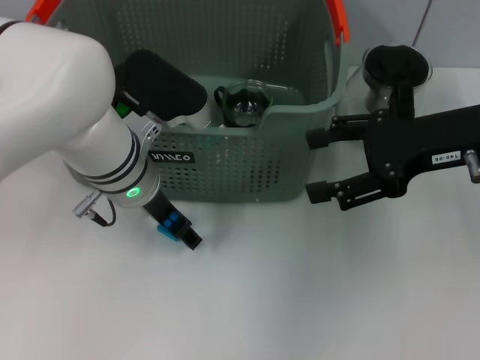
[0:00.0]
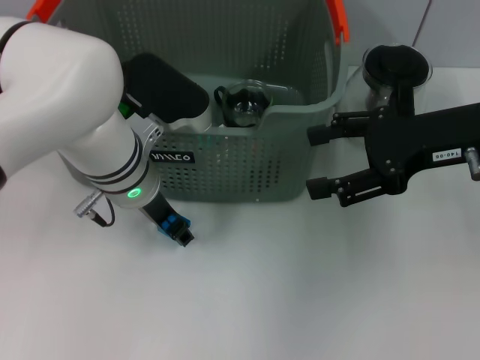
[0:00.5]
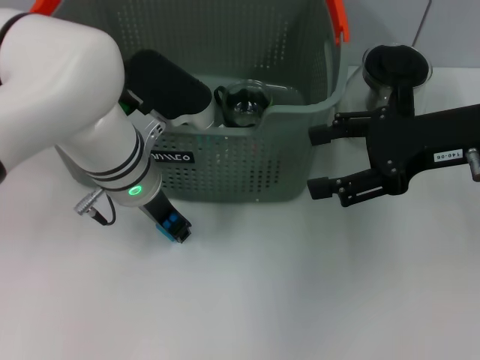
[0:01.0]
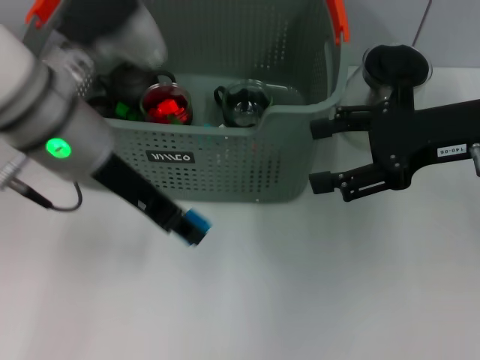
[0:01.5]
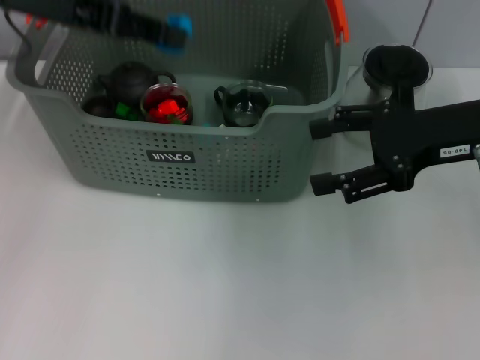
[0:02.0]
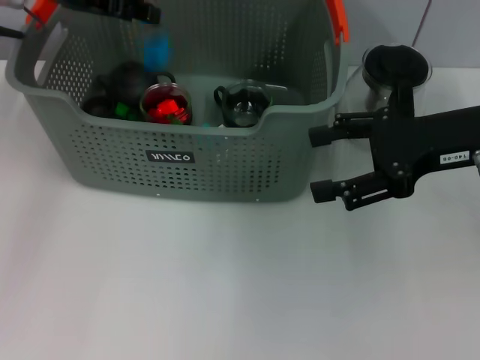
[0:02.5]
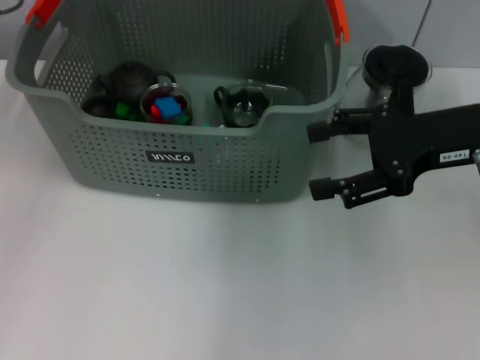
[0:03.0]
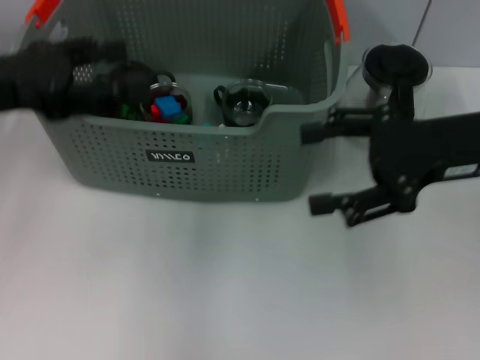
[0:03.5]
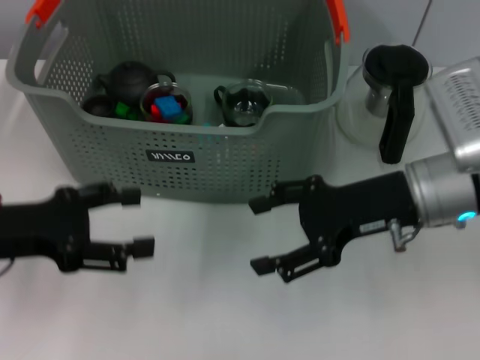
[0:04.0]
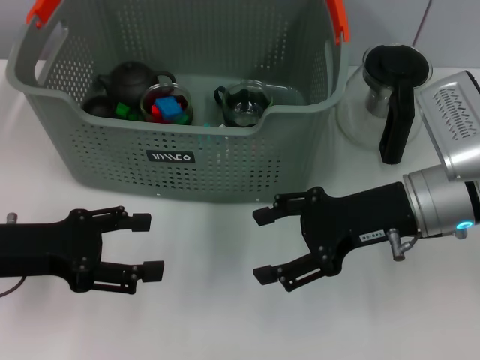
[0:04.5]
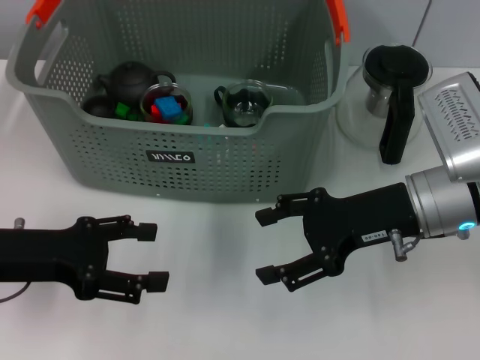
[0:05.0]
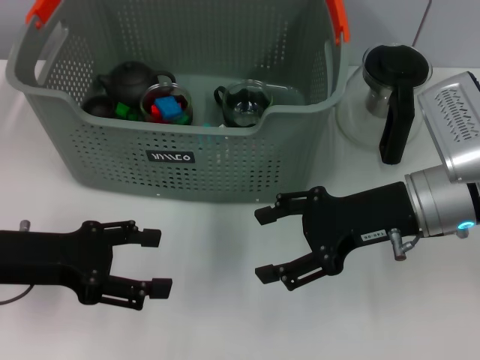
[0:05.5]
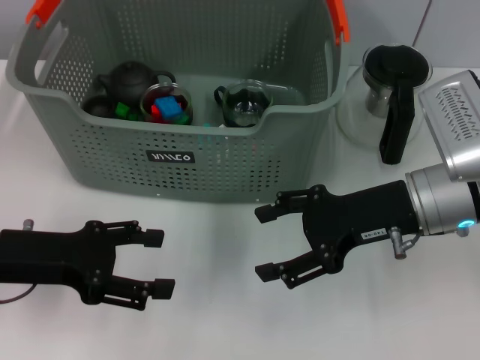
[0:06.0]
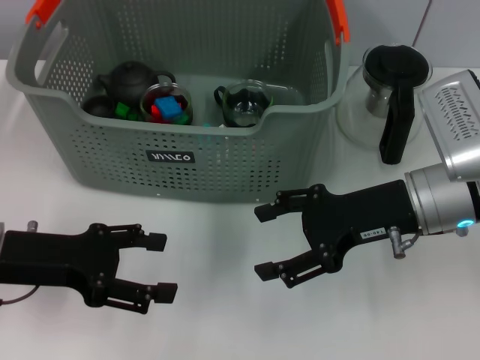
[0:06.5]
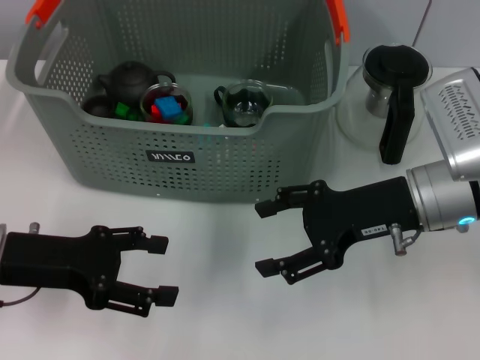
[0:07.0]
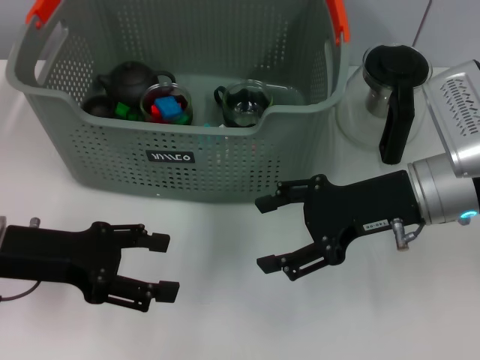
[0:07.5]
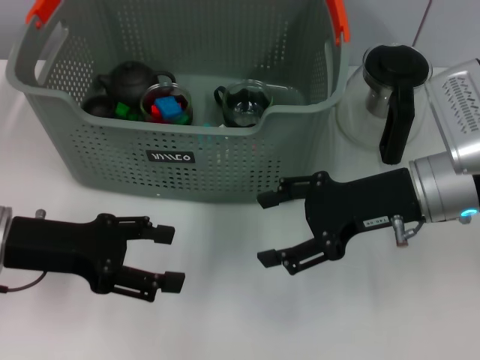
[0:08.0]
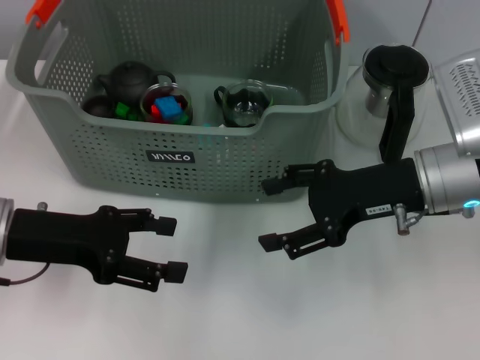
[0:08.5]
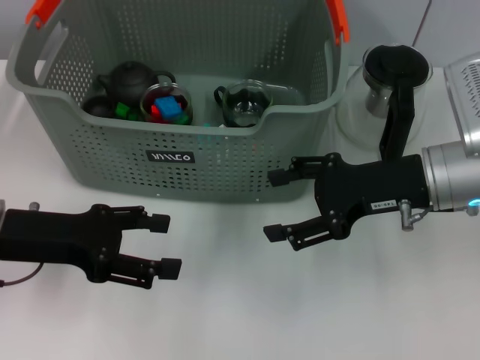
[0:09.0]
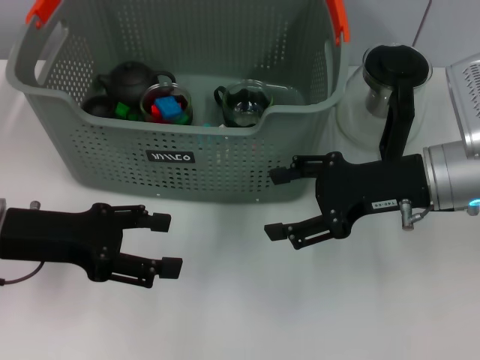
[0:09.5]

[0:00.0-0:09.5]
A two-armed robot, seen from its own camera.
Task of the whole recording: pick up the teacup on the table and place it into the storage bin, pick up the block on the table and place it into the storage bin.
Step, 0:01.5 to 0:02.5: Place the dark blue block in the storage box with left gripper.
0:00.0 to 0:02.0: The left gripper goes some 20 cm upward and to the left, and closes up.
0:02.0 to 0:04.0: The right gripper shifts some 10 cm downward and to the left, while the left gripper moves downward and backward, roughly 20 cm, and opens up.
0:04.0 to 0:05.5: The grippers make only small movements.
0:05.5 to 0:07.5: Both grippers stay about where they are.
0:07.5 to 0:09.5: The grippers make only small movements.

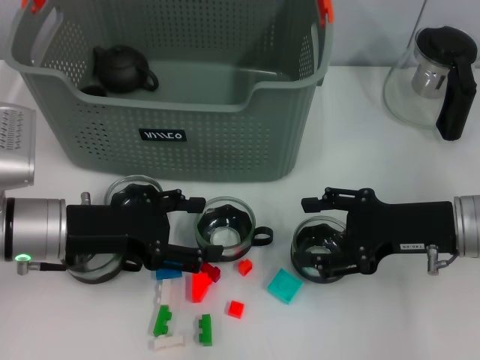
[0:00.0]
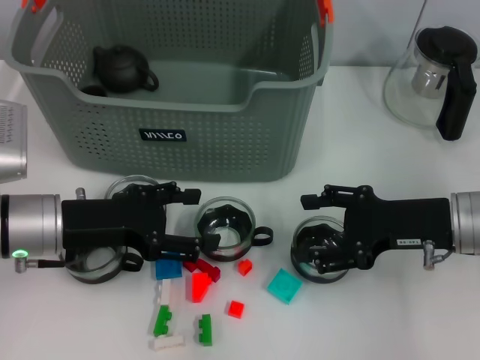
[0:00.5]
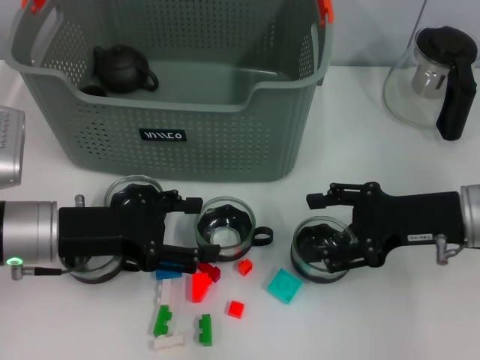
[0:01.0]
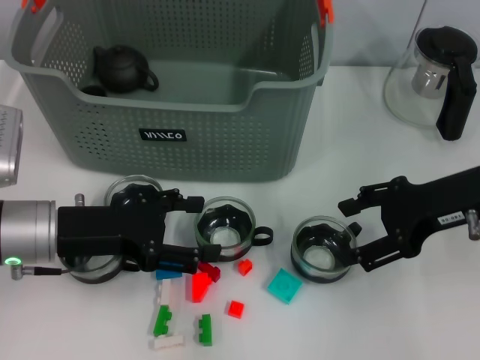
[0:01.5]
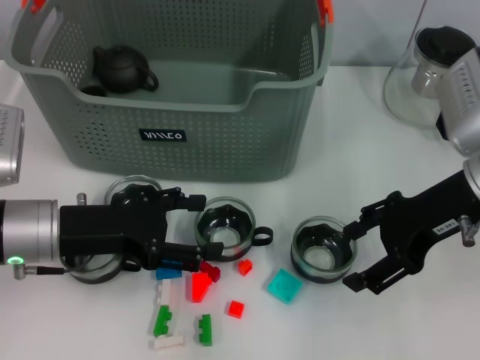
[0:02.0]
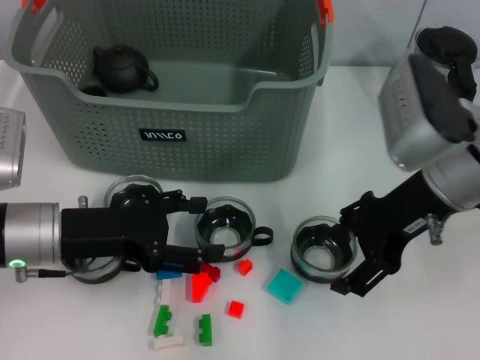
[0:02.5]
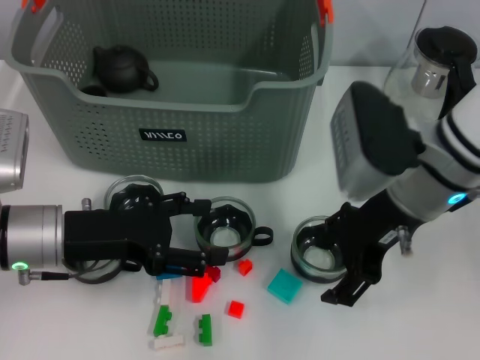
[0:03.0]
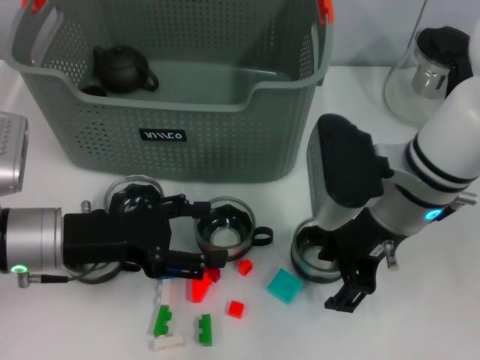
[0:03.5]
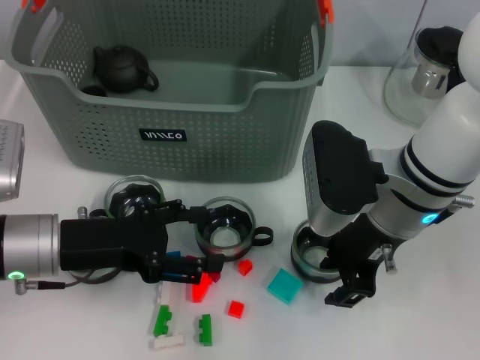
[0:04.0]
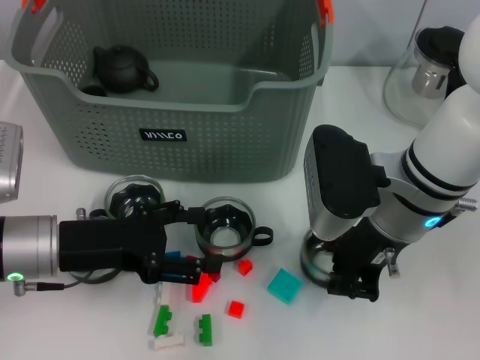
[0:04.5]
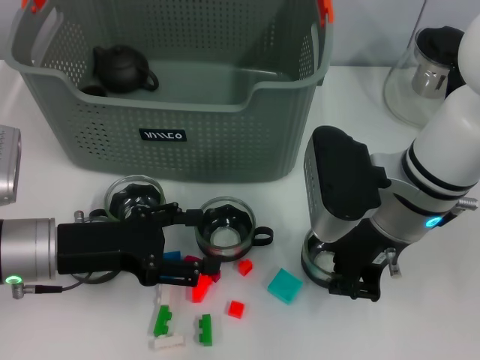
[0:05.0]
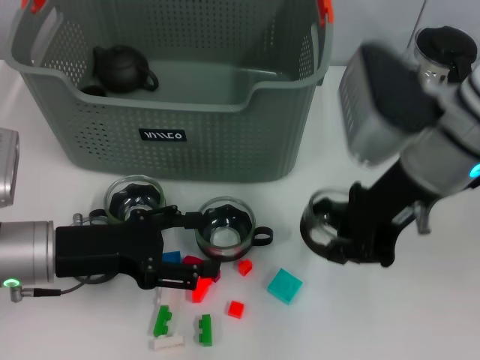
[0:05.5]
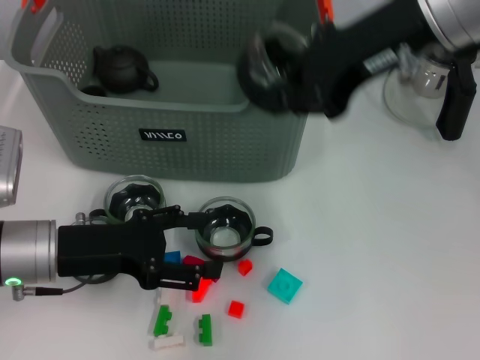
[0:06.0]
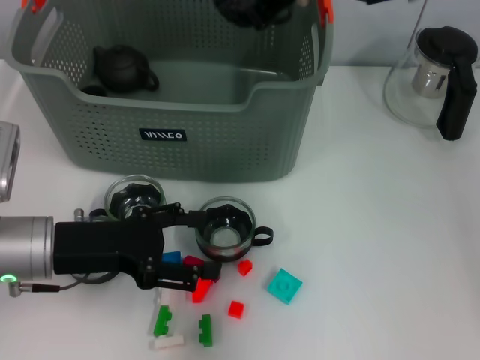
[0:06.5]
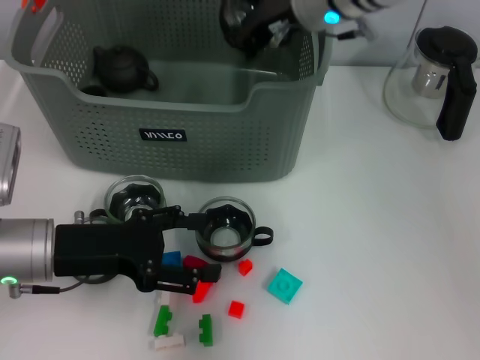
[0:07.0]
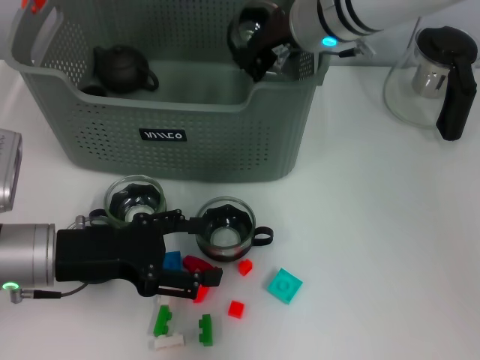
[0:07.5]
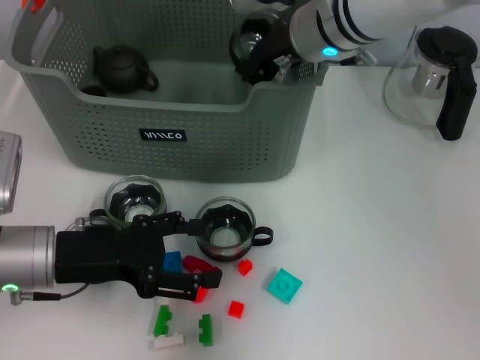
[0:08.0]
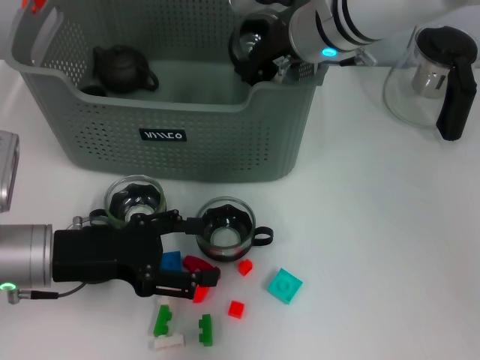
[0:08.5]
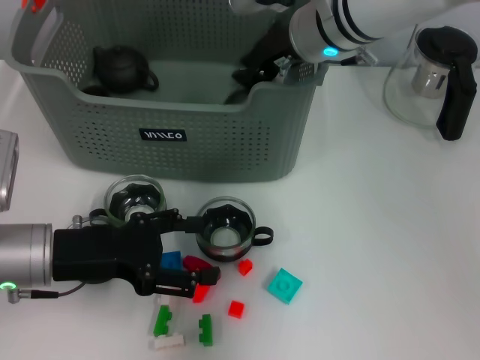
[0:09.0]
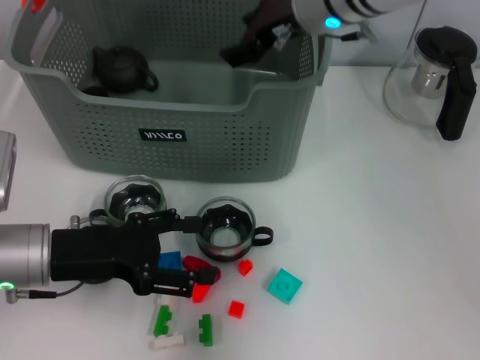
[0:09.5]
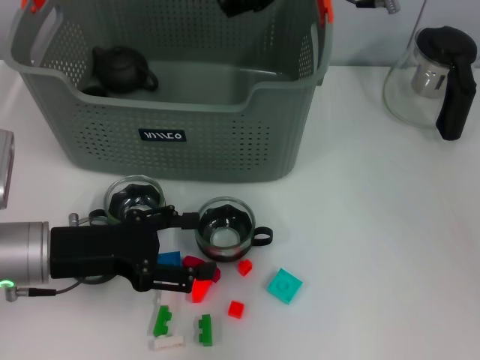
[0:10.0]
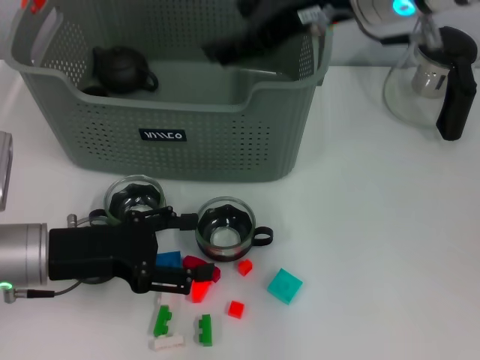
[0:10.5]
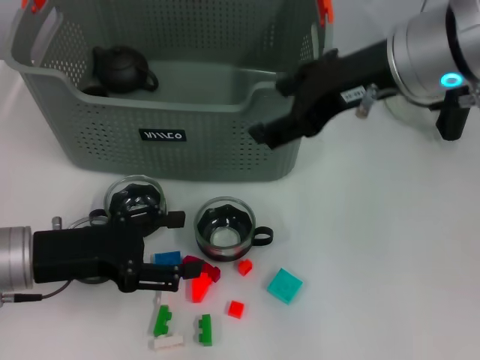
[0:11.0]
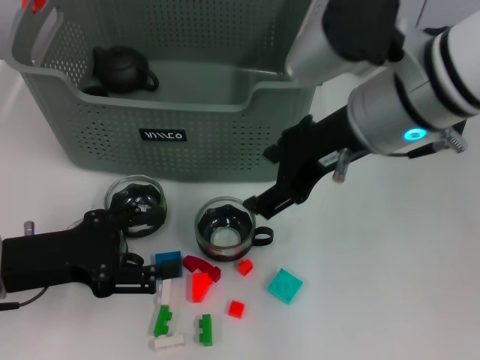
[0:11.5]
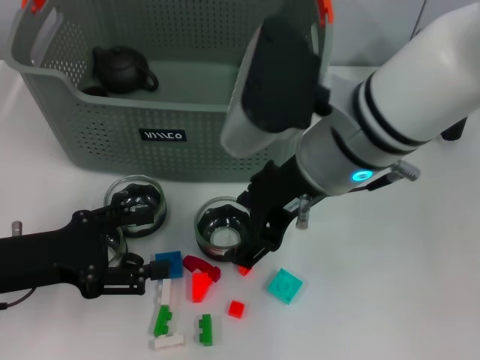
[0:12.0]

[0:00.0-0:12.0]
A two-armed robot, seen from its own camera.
Task of the whole recording: pick up the teacup on the table and place it into the storage bin, pick up the block on the table and place it into the storage bin.
Step, 0:00.0 to 0:04.5: Grasp the cup with right gripper.
Step, 0:05.0 to 0:08.5: Place the cup in the storage box with right gripper.
0:00.0 to 0:02.0: The right gripper goes some 10 cm upward.
0:02.0 to 0:04.0: The right gripper moves to the left, approximately 10 cm.
0:04.0 to 0:06.0: The right gripper shifts some 15 cm upward, and closes up.
0:06.0 to 0:08.0: The right gripper shifts about 15 cm downward, forward and to the left.
0:08.0 to 0:10.0: The right gripper heads upward, covering roughly 5 cm, and opens.
0:10.0 to 0:12.0: The right gripper moves backward, approximately 15 cm.

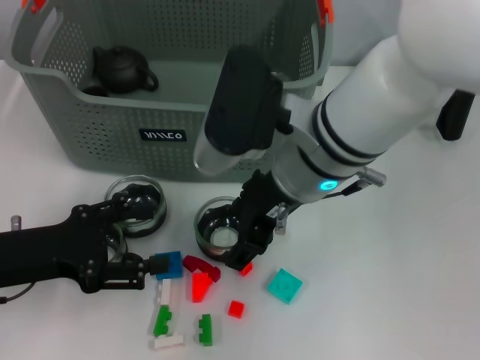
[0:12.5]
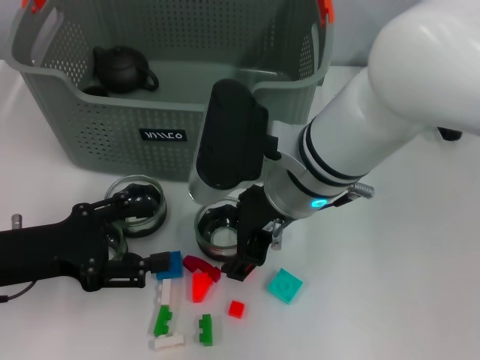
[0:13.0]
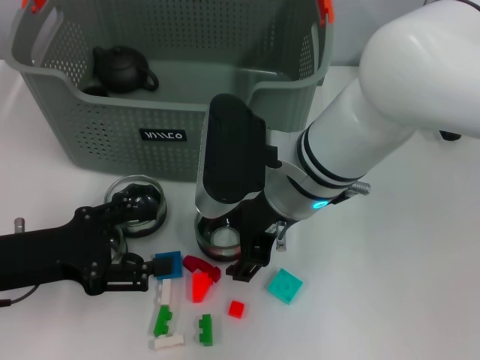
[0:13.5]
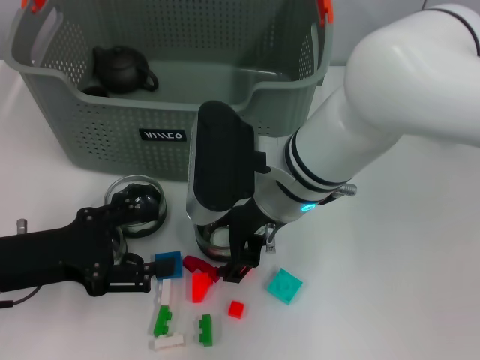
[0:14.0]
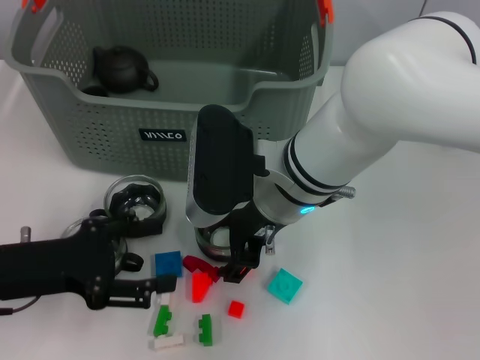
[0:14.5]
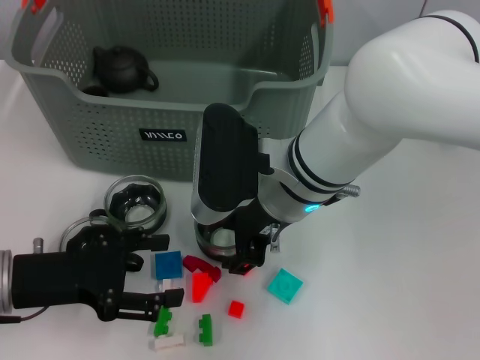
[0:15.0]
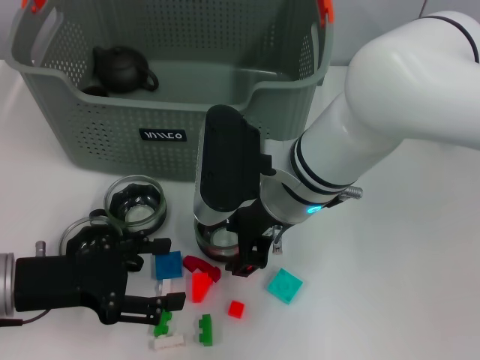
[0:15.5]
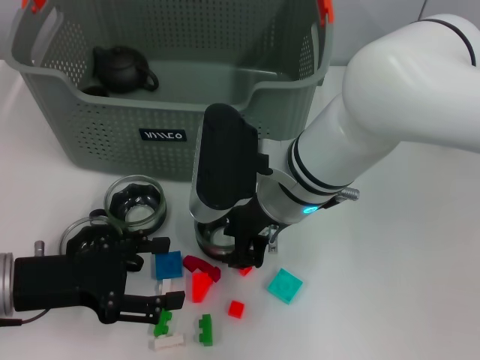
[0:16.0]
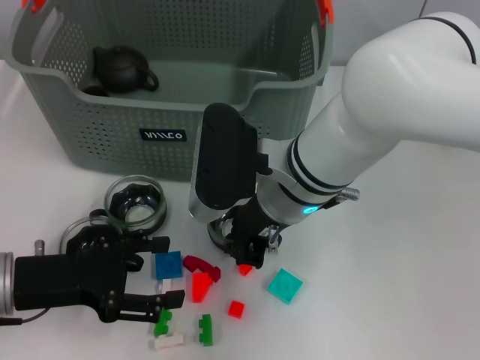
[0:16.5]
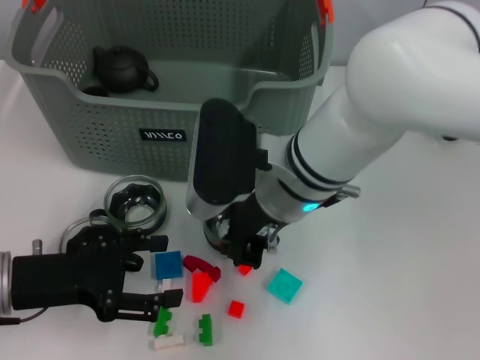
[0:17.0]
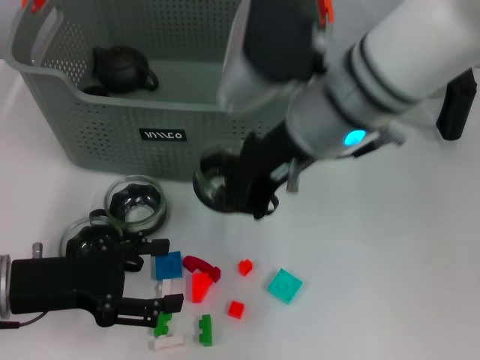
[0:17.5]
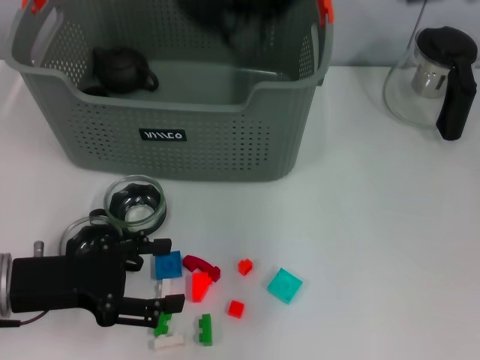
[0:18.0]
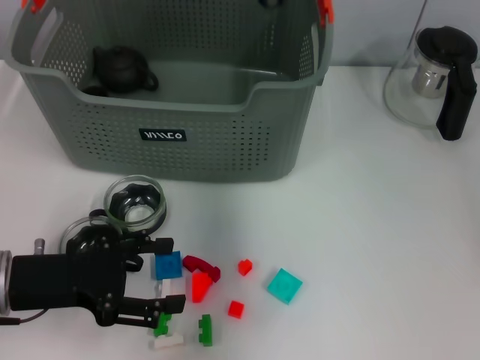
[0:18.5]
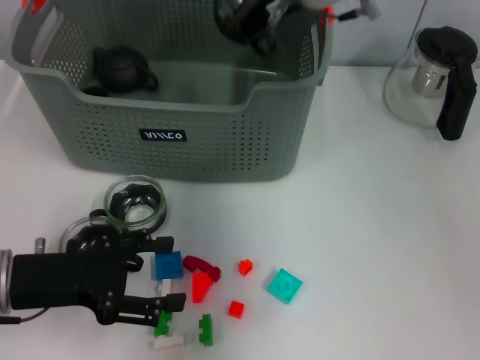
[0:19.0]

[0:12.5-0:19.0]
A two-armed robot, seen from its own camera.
Task of the whole recording: pick up the teacup on the table and place it into the storage bin, pick up the block on the table and place it into the storage bin.
Step, 0:12.5 to 0:16.5: Grasp the cup with right gripper.
0:14.5 to 0:17.0: The right gripper closes its fingers.
0:17.0 to 0:19.0: The right gripper goes approximately 15 cm forward and upward.
